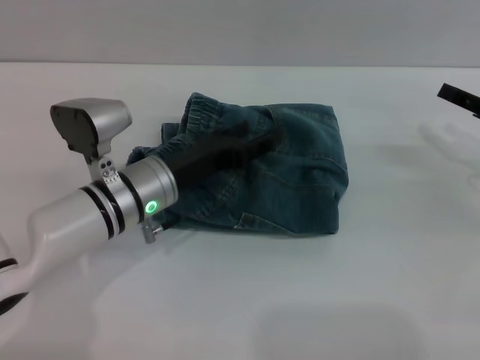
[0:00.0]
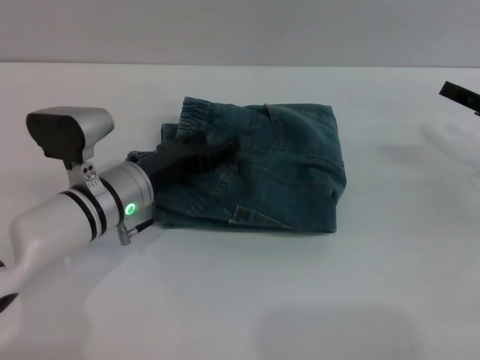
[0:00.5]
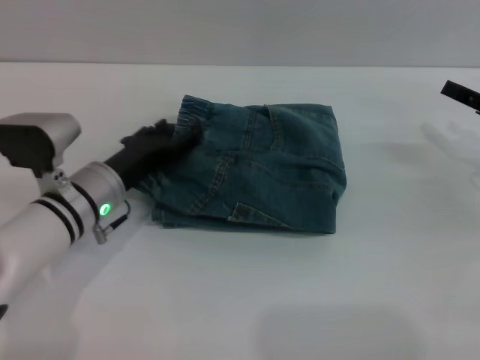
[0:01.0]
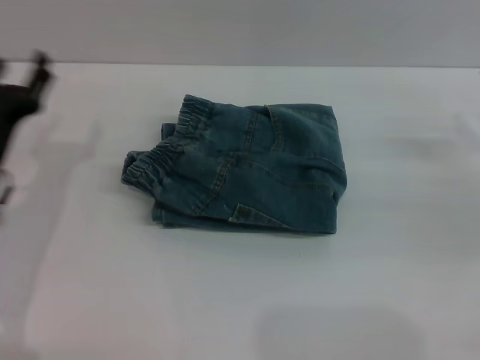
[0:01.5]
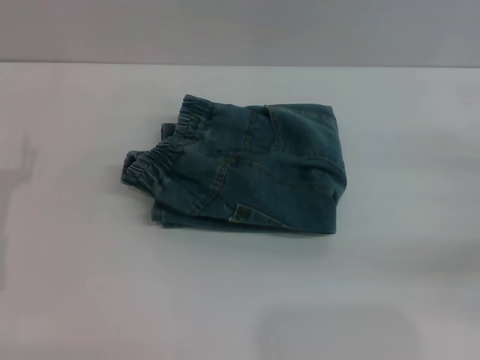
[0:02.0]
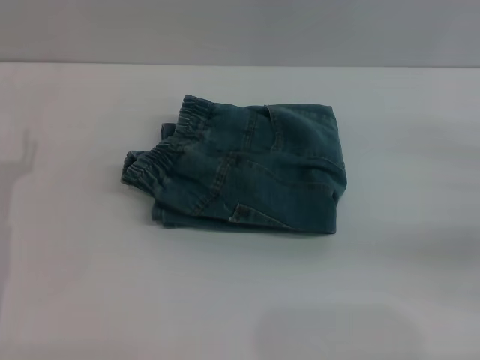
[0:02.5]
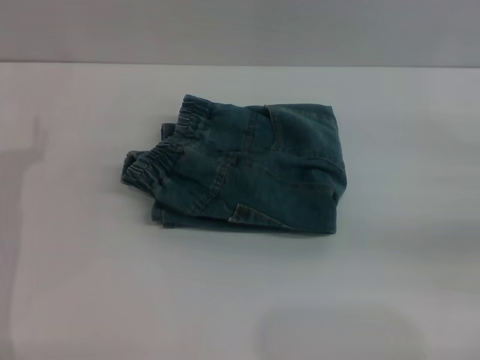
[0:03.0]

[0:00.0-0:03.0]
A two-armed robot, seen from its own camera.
0:00.0 to 0:01.5: The left gripper goes roughly 15 cm to the left.

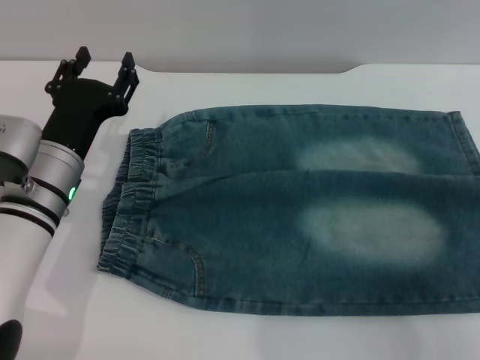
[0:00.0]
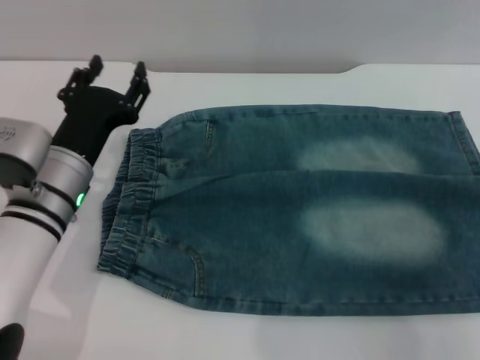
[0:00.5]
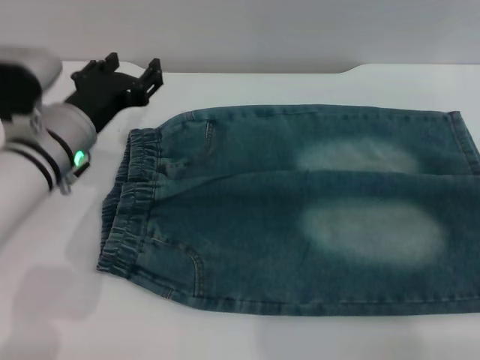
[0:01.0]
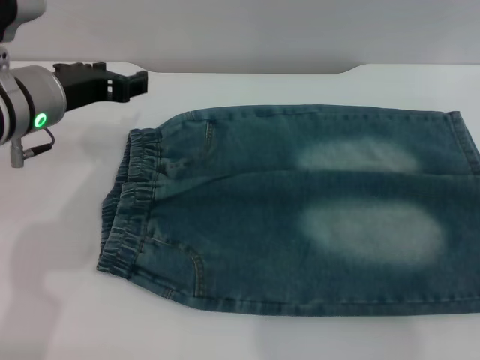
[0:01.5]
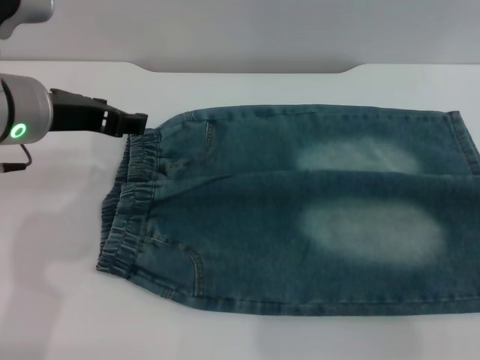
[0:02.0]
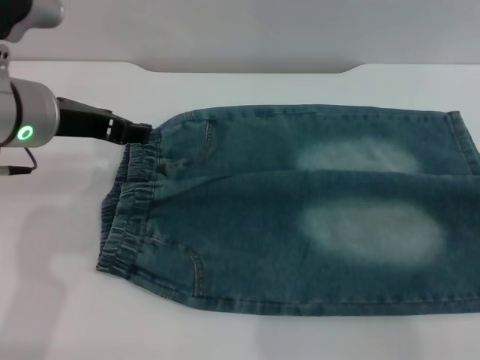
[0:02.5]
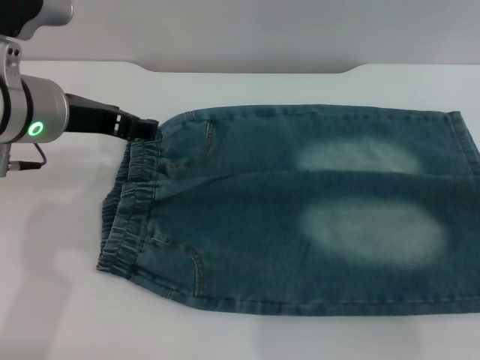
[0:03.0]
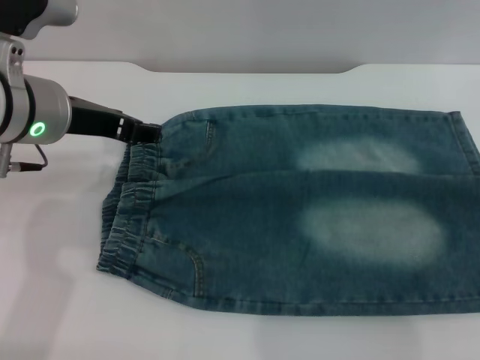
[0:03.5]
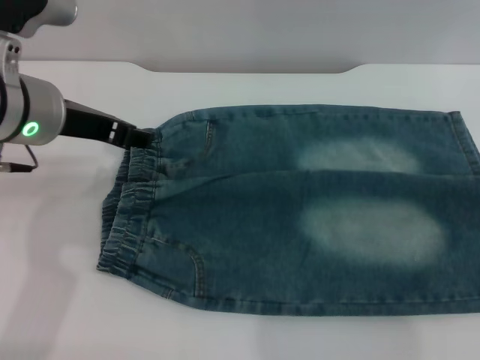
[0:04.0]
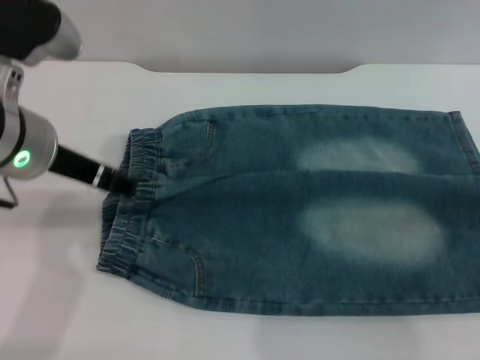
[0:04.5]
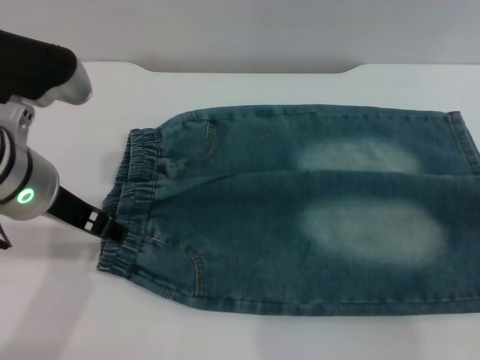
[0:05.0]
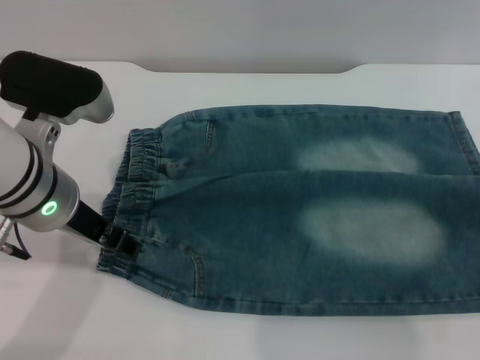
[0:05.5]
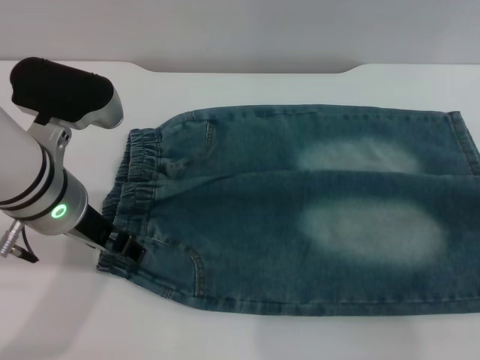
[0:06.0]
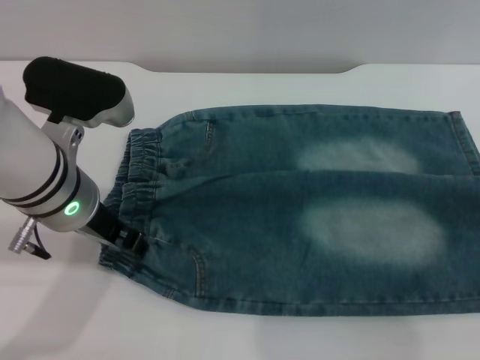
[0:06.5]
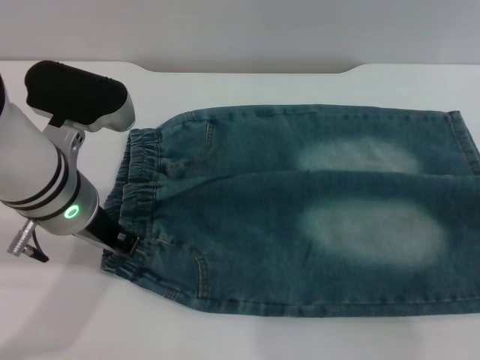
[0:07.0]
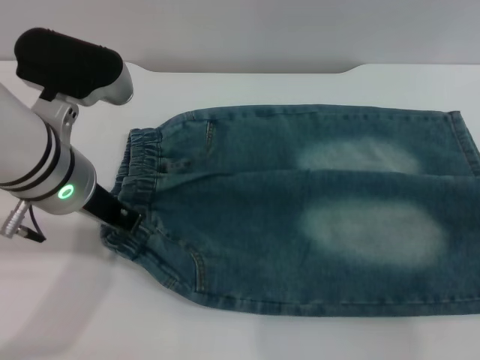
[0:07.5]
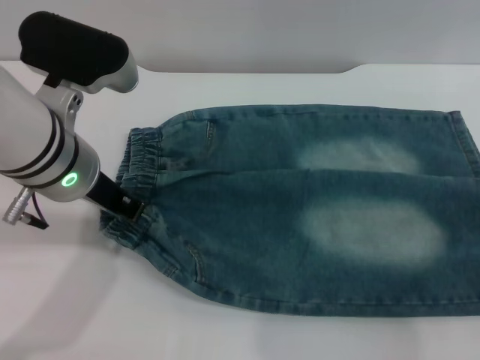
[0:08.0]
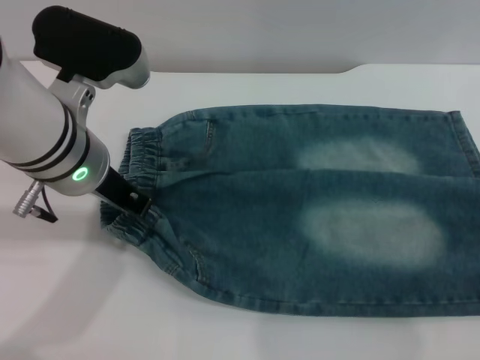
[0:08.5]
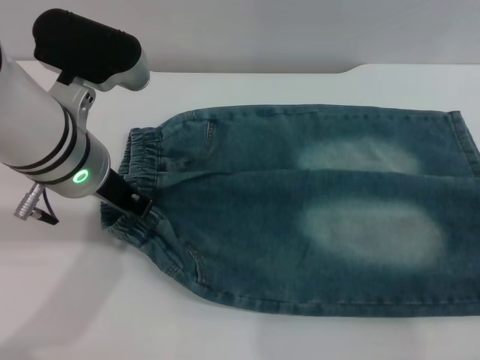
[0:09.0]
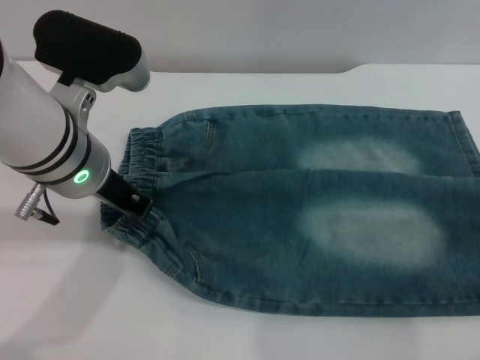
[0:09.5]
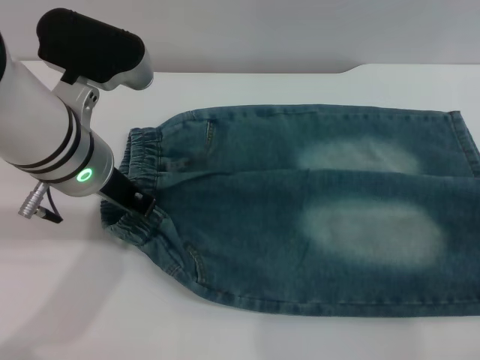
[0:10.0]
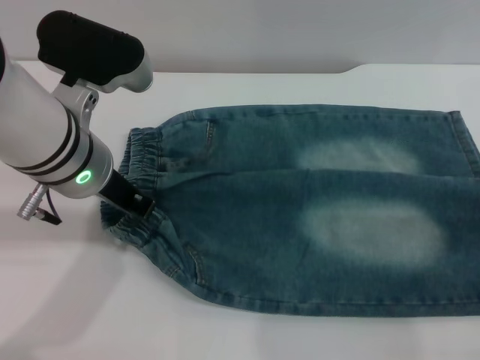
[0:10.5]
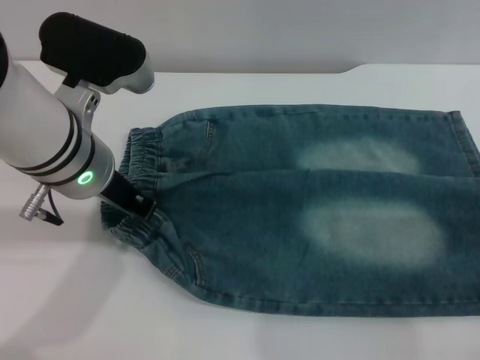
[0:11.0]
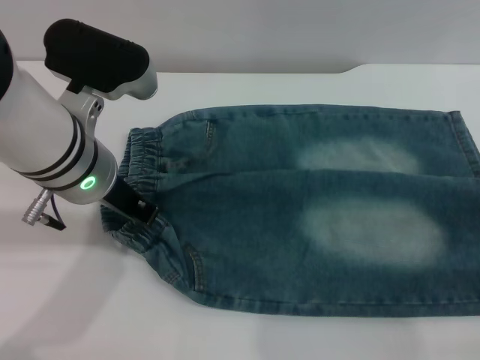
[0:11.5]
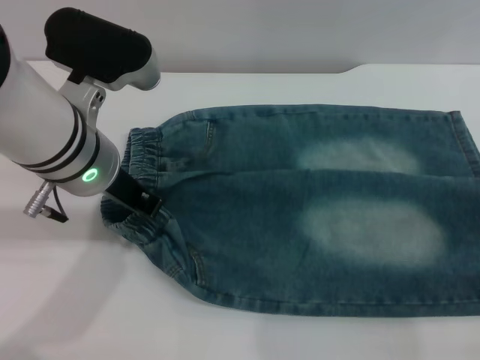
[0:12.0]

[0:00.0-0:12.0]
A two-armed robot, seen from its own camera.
0:00.0 to 0:02.0: The left gripper travels upward by approximately 15 cm.
0:04.0 to 0:06.0: The left gripper moves approximately 5 cm.
0:06.0 to 0:08.0: The left gripper closes. The right gripper is displaced downward by approximately 5 cm.

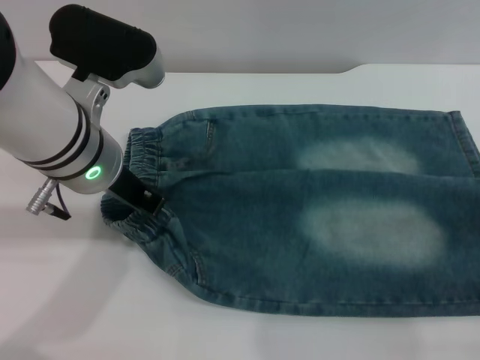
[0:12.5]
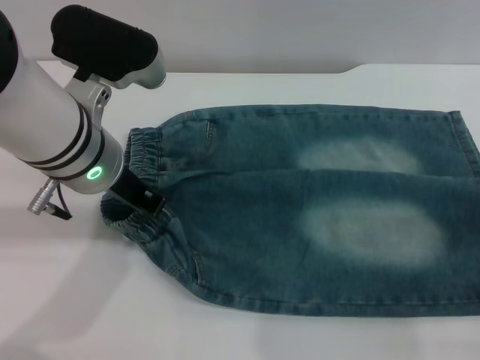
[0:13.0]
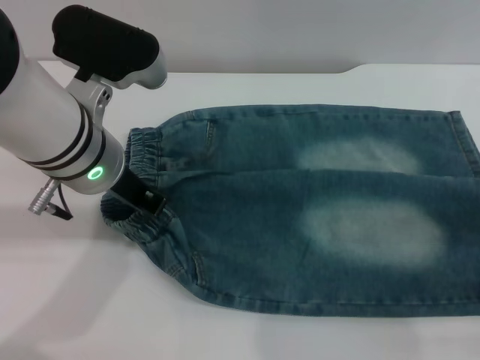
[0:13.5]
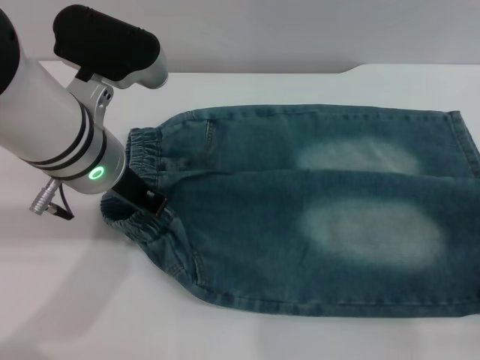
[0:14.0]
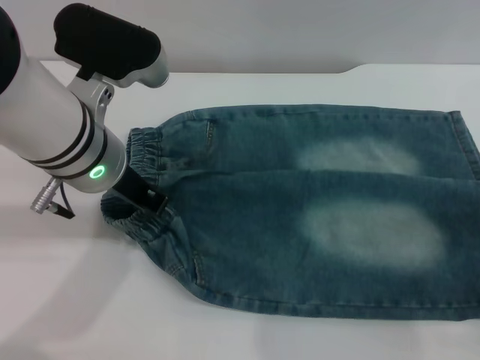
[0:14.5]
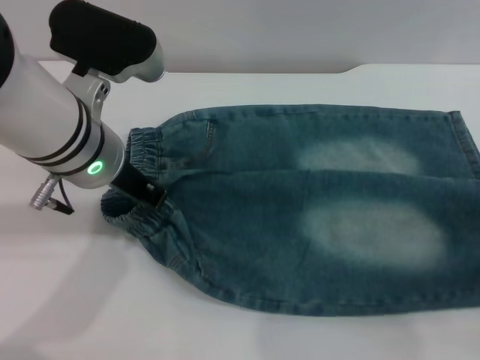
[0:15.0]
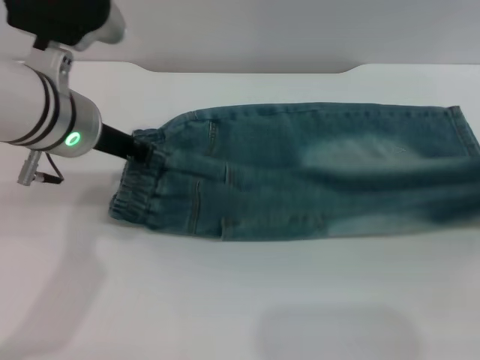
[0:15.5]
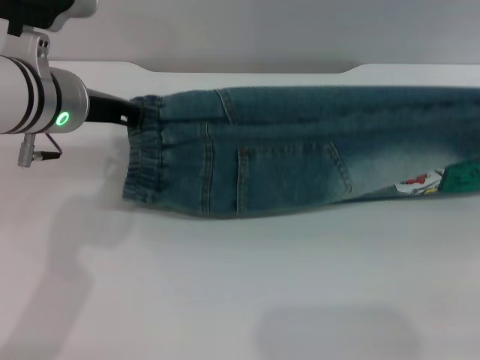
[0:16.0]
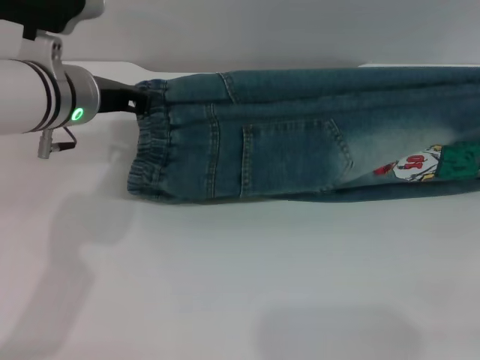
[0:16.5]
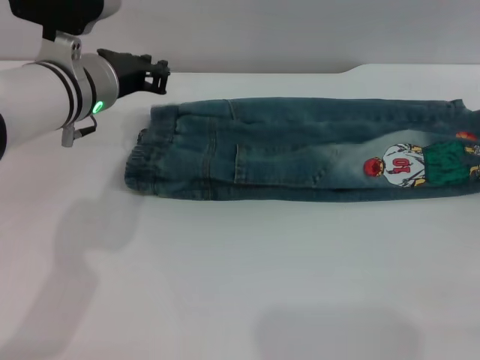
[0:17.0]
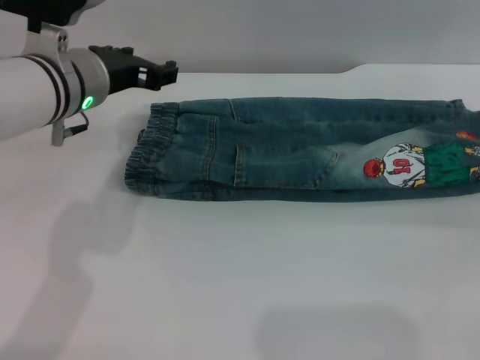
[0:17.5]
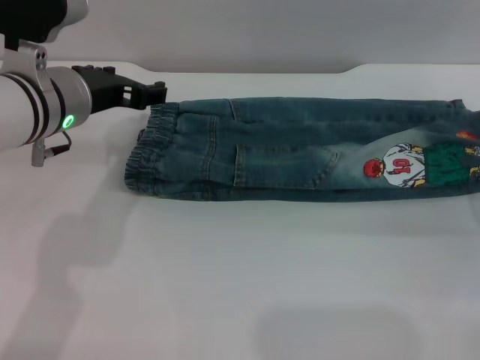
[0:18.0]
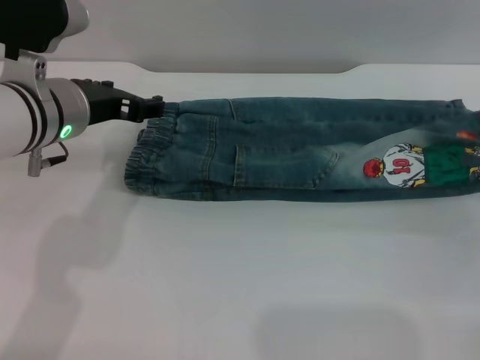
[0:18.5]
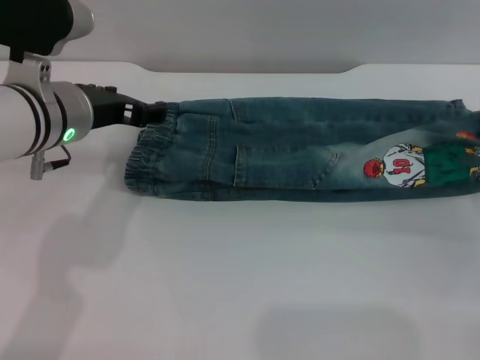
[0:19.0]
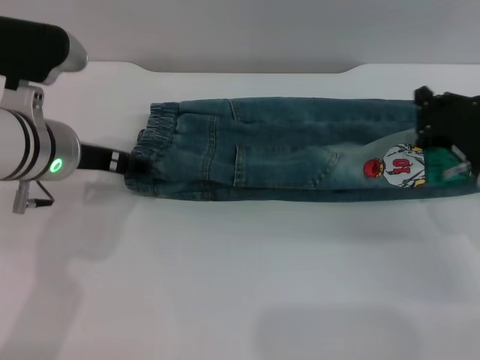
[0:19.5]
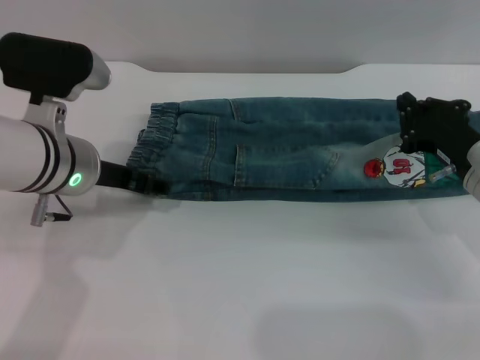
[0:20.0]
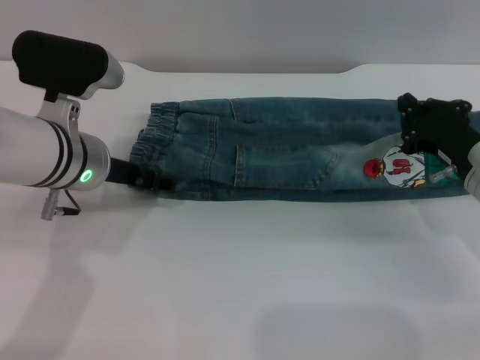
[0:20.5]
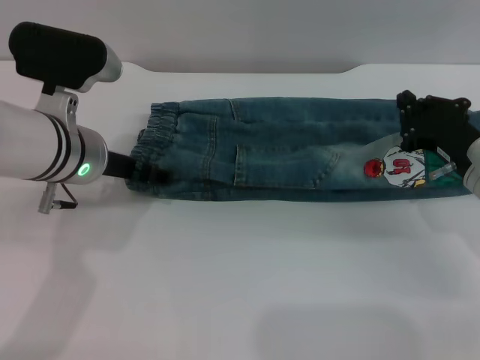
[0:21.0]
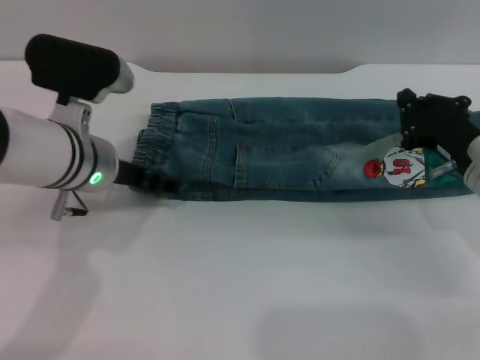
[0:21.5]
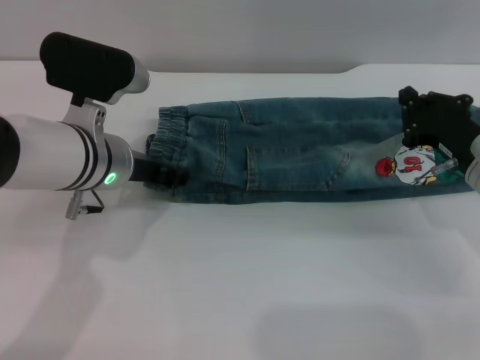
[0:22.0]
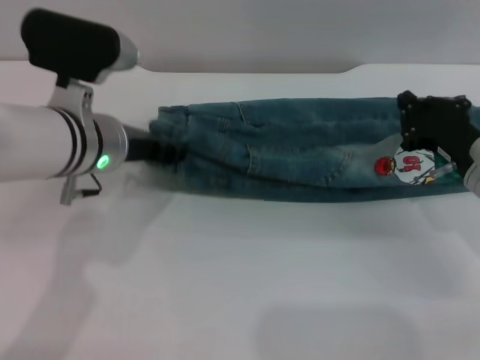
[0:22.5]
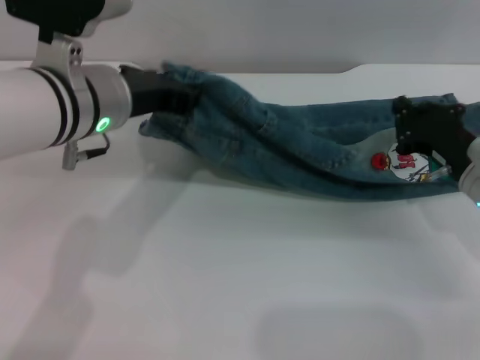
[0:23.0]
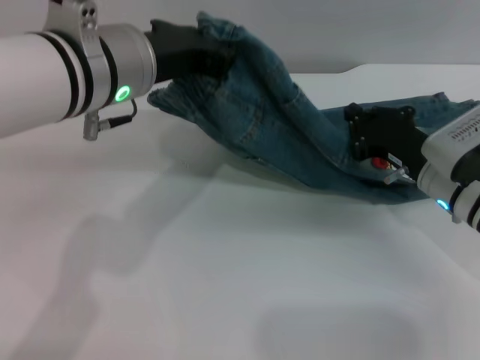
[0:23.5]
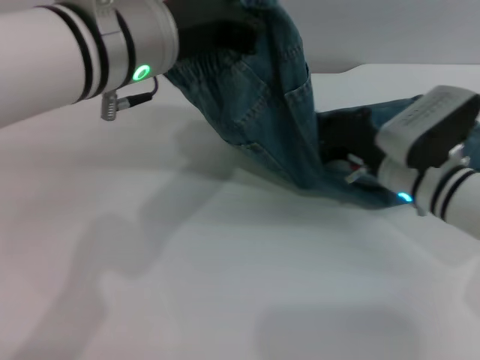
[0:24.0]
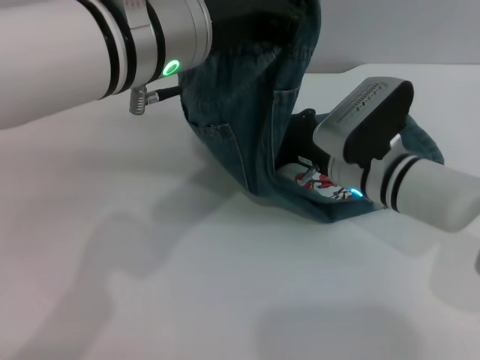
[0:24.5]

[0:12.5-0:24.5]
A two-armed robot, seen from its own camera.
Step, 0:12.5 to 0:19.0: Fold the bottom of the pants upward with both grippers.
0:14.5 to 0:16.5: The right gripper travels forward and upward by some 10 cm, while the left gripper is displaced forward by about 5 cm.
0:16.5 to 0:18.5: The left gripper opens up. The right gripper heads downward and to the left, covering roughly 15 cm, and opens and closes again.
0:18.5 to 0:20.5: The right gripper travels to the left by approximately 5 cm.
0:20.5 to 0:22.5: The left gripper closes.
0:22.5 to 0:24.5: The right gripper travels to the left by approximately 10 cm; the left gripper travels upward and to the right by about 15 cm, and closes up.
